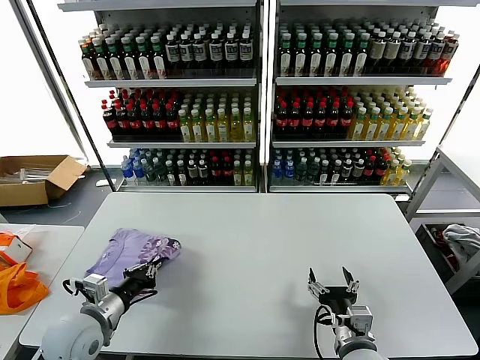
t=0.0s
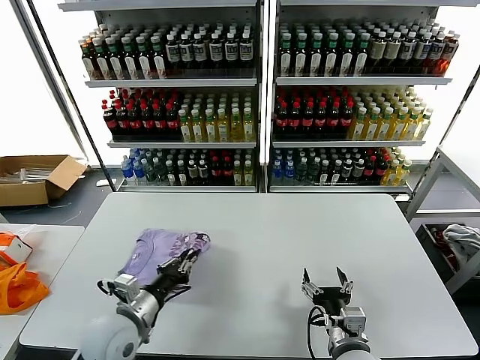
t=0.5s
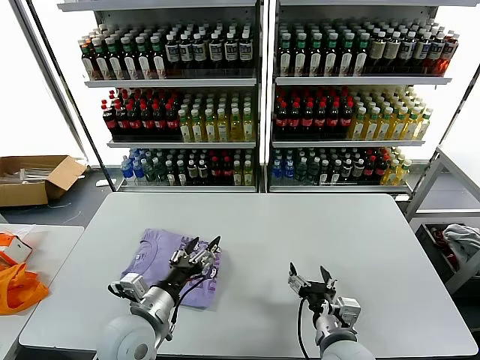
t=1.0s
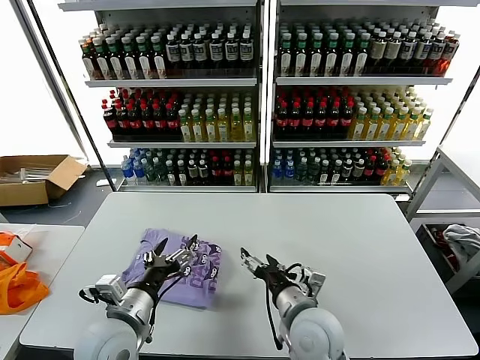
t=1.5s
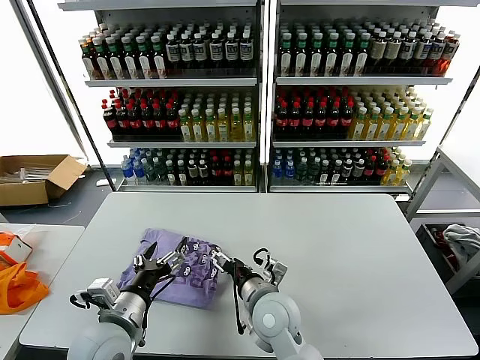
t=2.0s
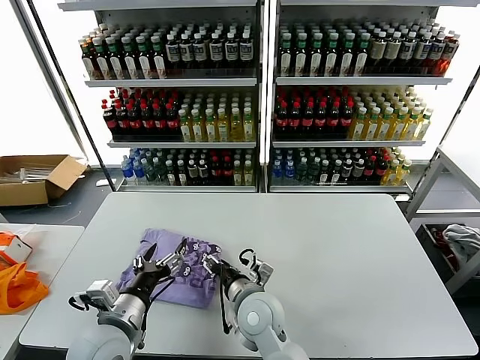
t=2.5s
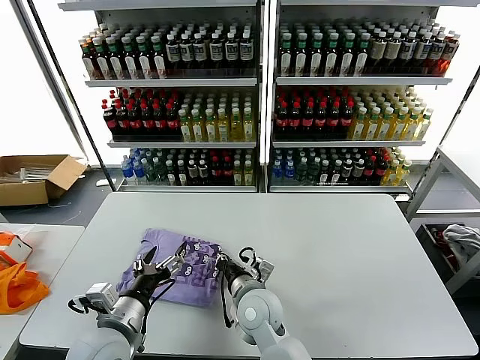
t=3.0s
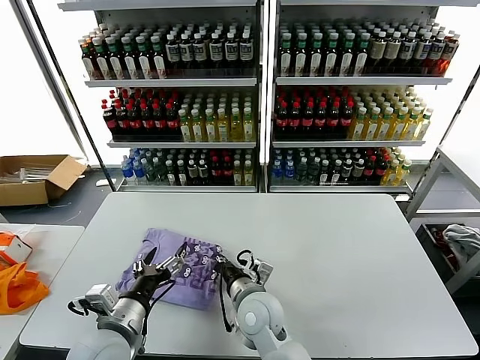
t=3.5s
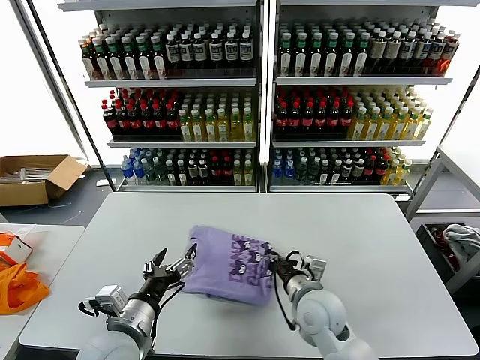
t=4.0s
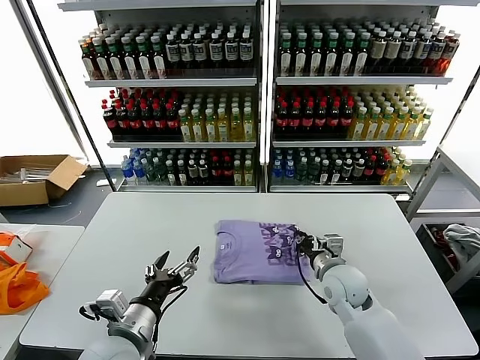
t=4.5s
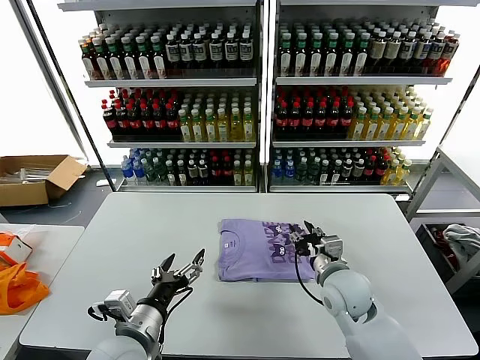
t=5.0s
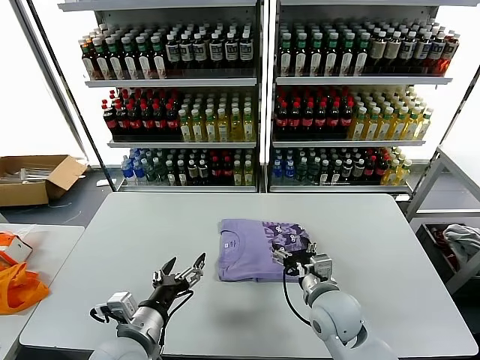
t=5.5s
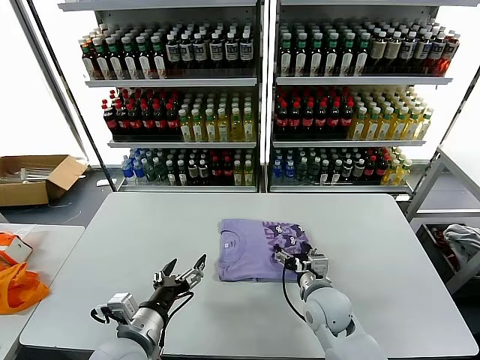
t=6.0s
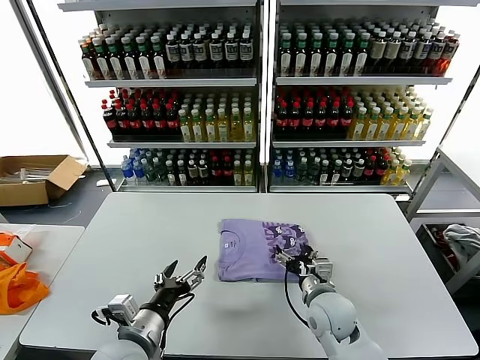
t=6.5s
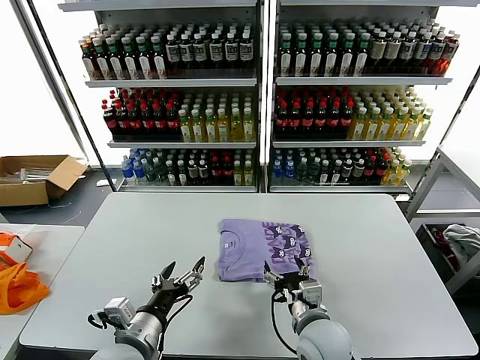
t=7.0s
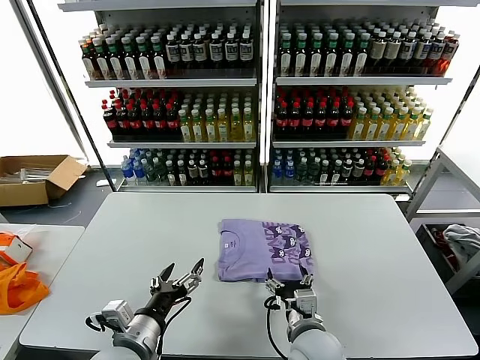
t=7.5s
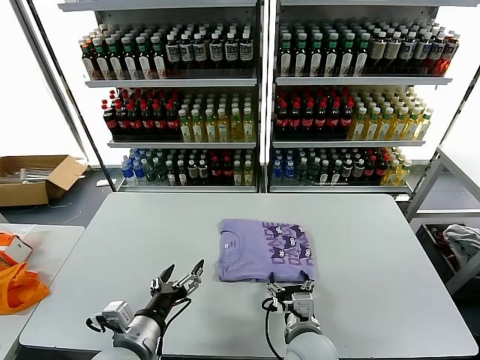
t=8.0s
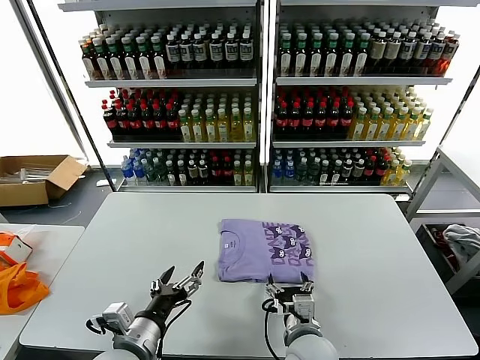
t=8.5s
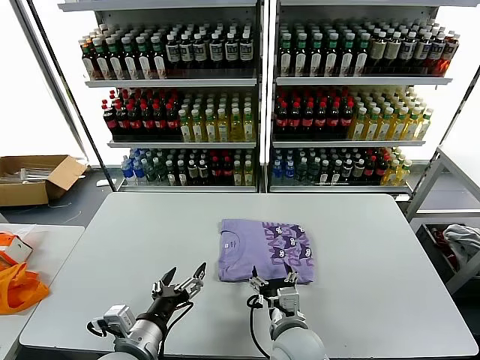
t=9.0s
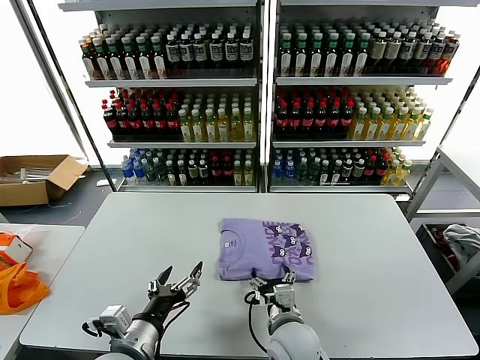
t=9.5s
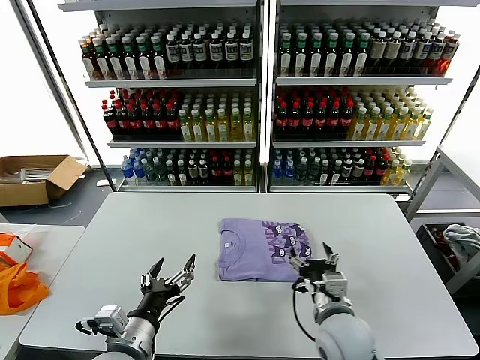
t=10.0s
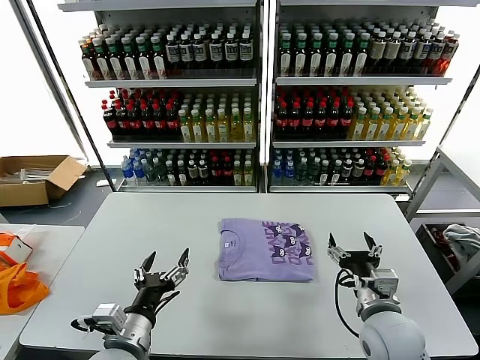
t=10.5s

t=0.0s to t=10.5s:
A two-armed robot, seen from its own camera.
Task of the whole recording: fold and organize the clothes.
Step, t=1.0s to t=9.0s: Drag the clothes to the center of the table.
t=0.0s to t=2.0s: The left gripper goes approximately 10 cm to the right, and opens its fingers. Meanwhile the right gripper heads to the left and forward, covering roughly 20 cm.
t=2.0s to t=4.0s: The right gripper is displaced to the right by some 10 cm, and closes up.
t=4.0s to t=6.5s: The right gripper opens up.
t=6.5s to t=8.5s: The right gripper travels backward and to the left by roughly 10 cm.
t=8.5s to t=10.5s: The right gripper is displaced to the right and upward by roughly 15 cm.

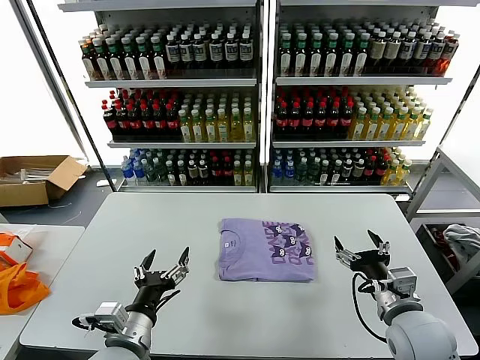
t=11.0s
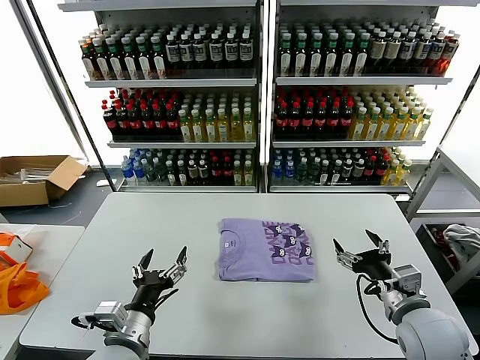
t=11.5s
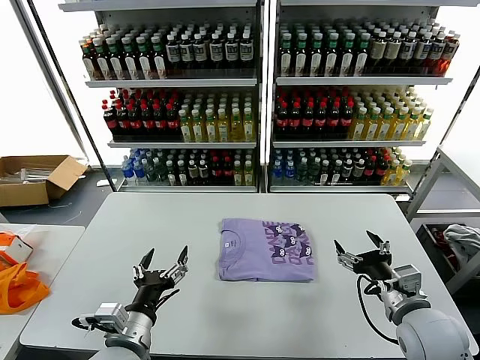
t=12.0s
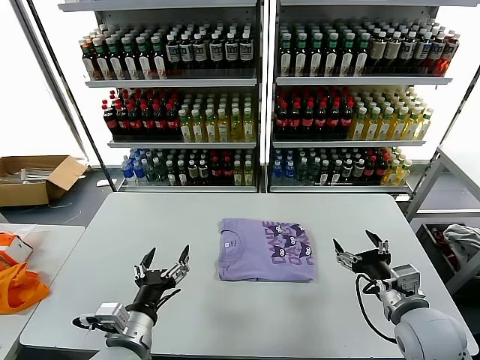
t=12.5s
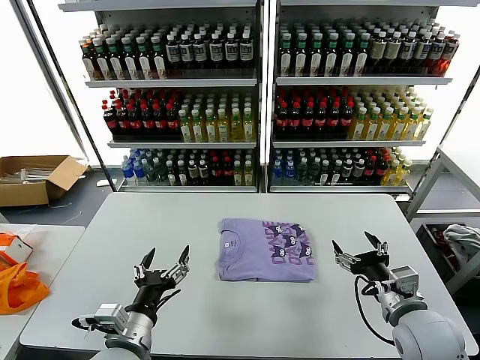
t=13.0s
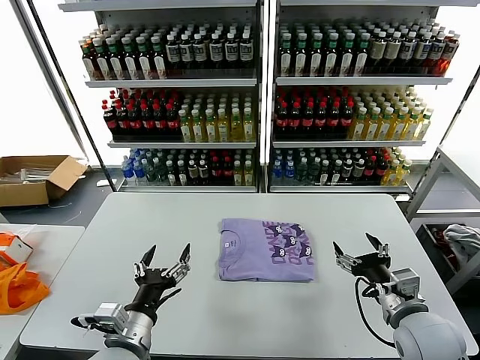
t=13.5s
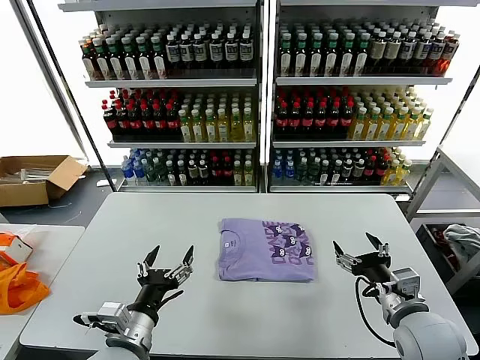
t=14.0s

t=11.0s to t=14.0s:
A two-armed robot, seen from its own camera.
Task of the whole recording: fold and organize the clothes.
t=11.0s to t=12.5s: The grippers stay close to where they were, moving slightly.
t=12.5s to t=14.0s: Both grippers stay put.
